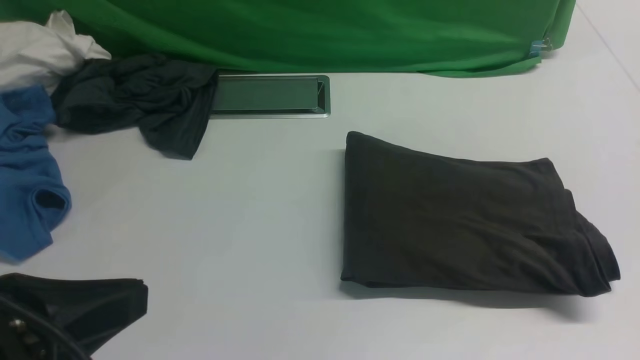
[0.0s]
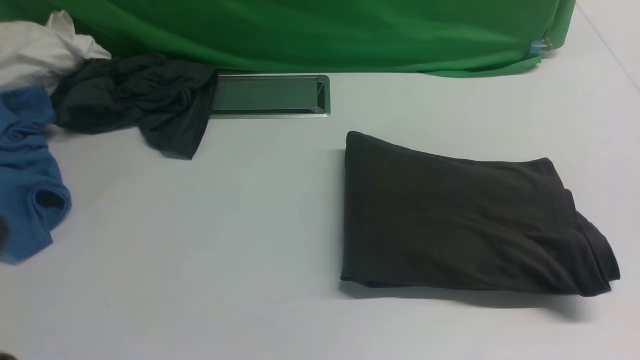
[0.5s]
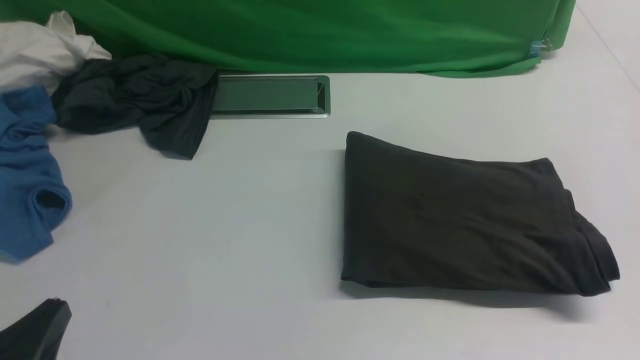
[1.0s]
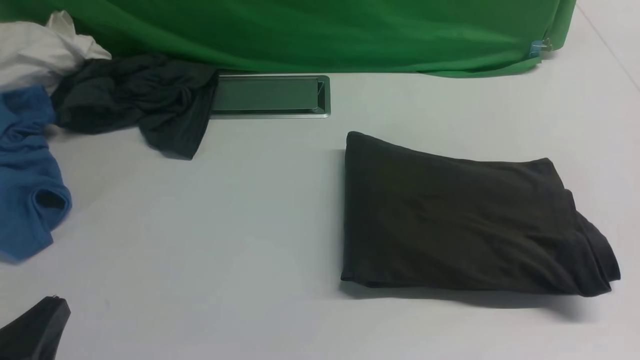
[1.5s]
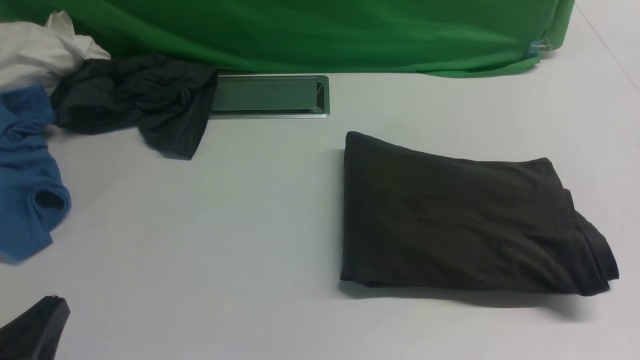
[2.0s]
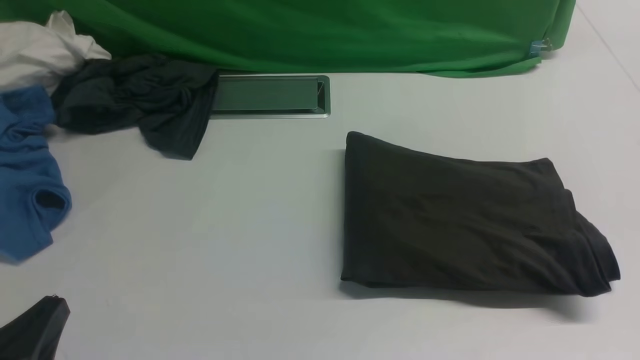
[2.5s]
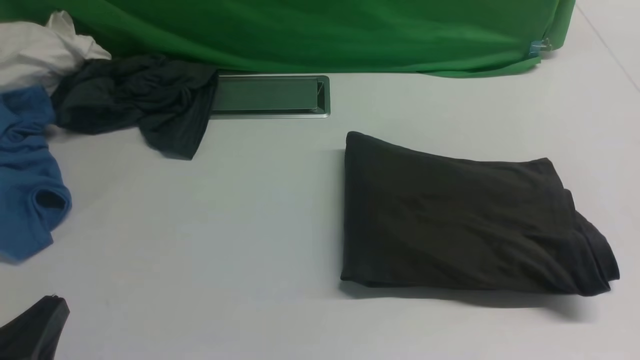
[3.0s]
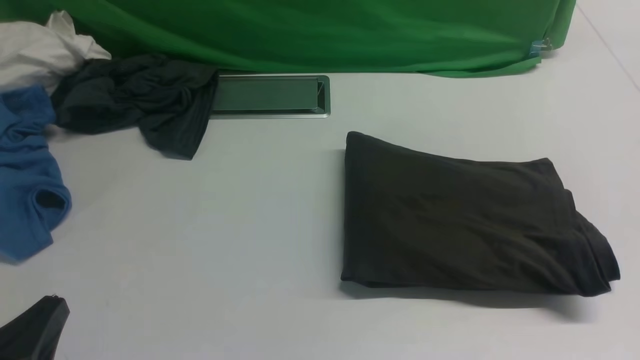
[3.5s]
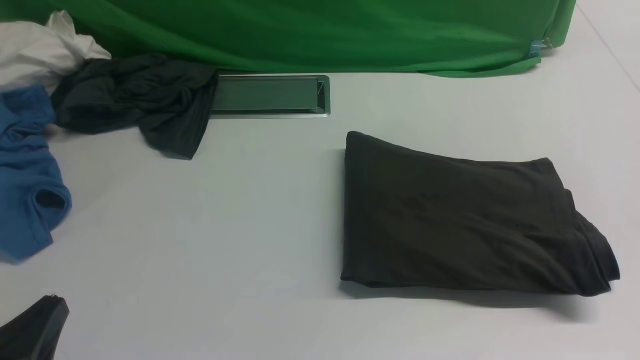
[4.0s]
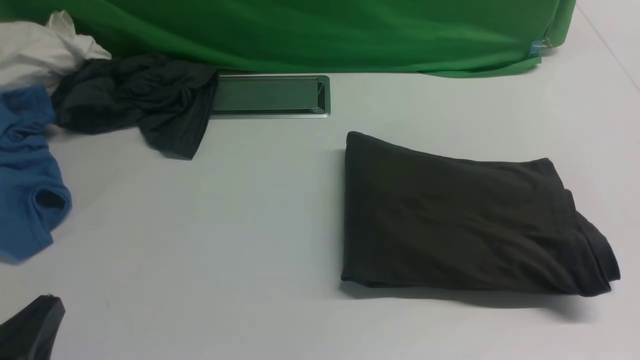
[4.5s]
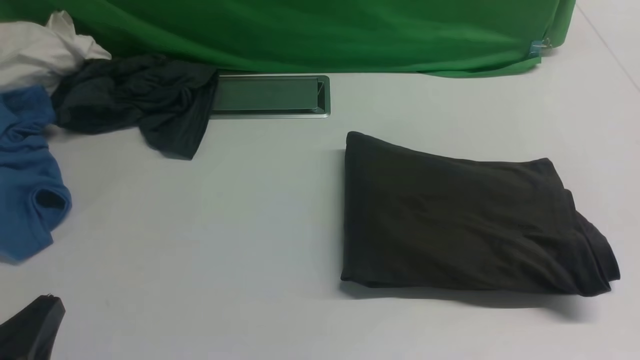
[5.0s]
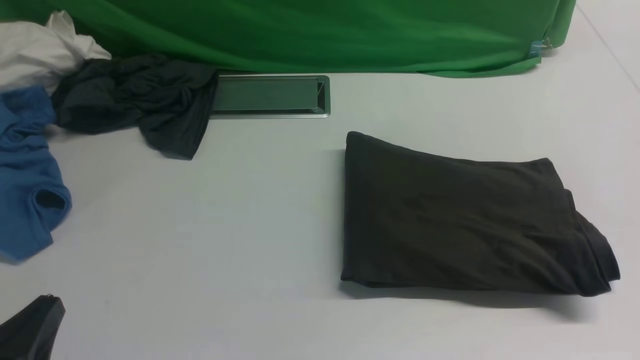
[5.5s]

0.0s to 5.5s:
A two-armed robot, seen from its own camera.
0.0s to 2.0s: The left gripper heads downward, covering approximately 15 cm.
3.5s to 5.5s: The two grippers keep their place.
